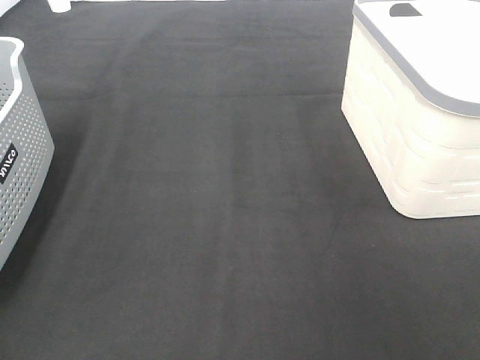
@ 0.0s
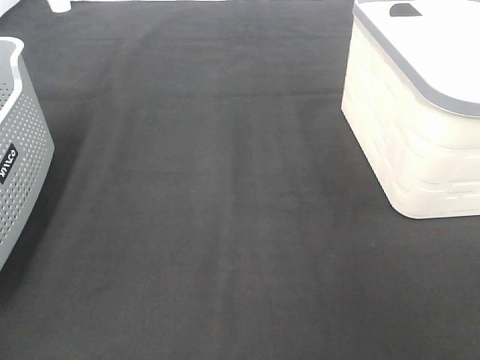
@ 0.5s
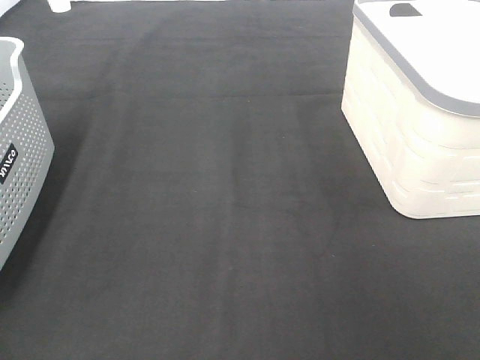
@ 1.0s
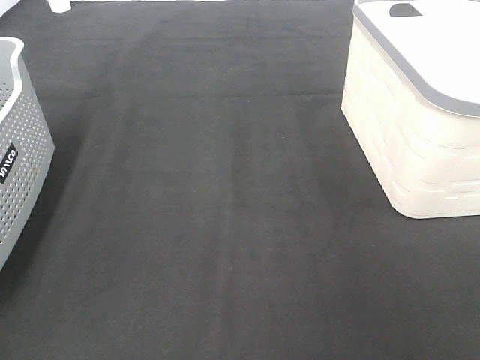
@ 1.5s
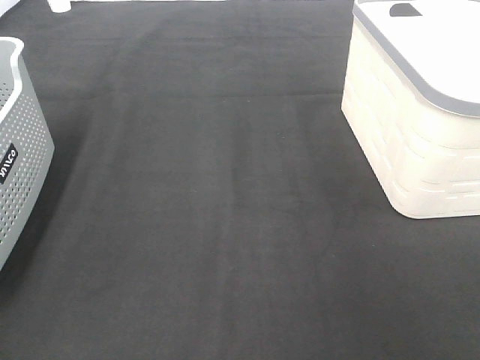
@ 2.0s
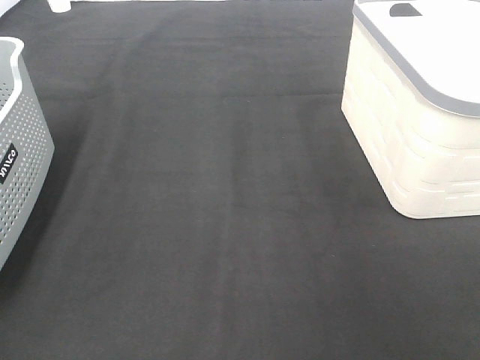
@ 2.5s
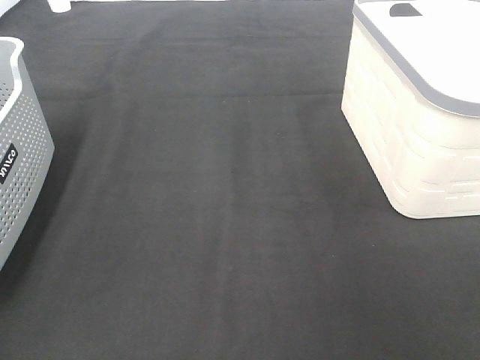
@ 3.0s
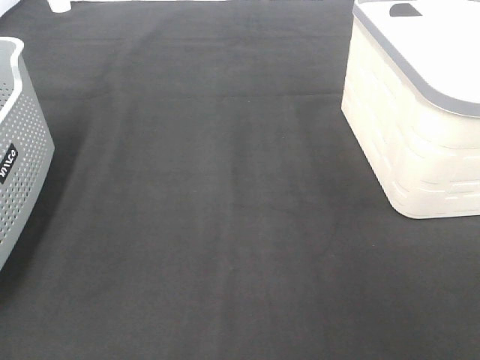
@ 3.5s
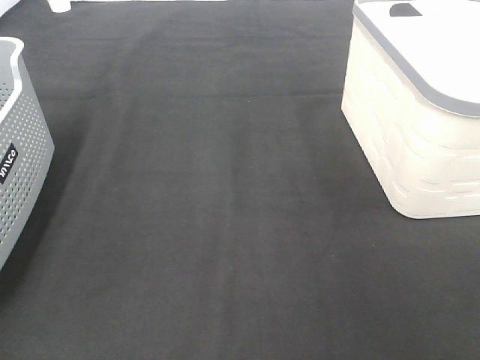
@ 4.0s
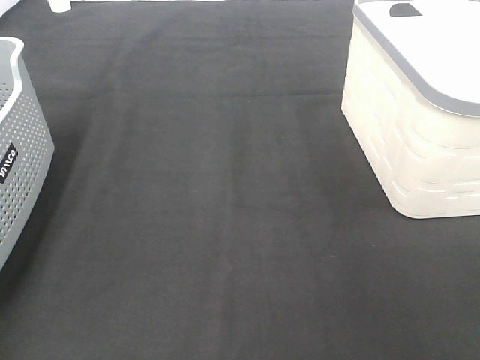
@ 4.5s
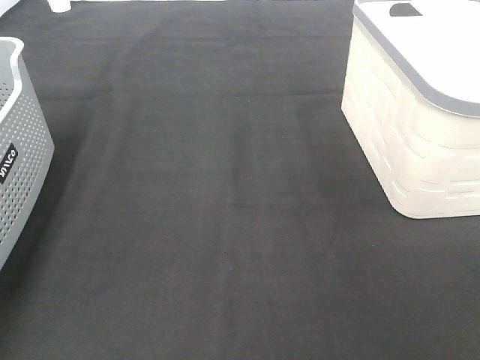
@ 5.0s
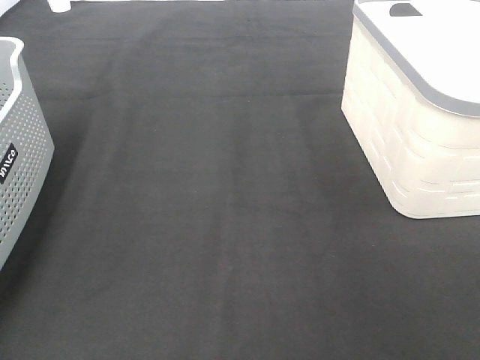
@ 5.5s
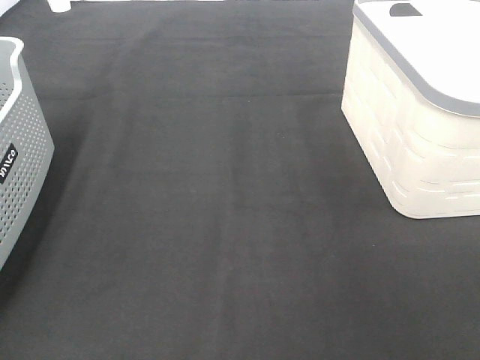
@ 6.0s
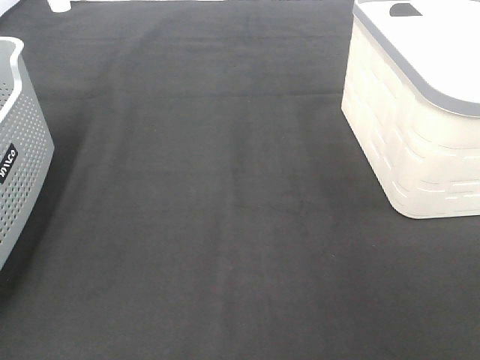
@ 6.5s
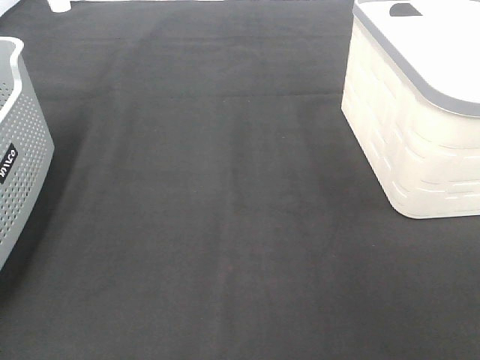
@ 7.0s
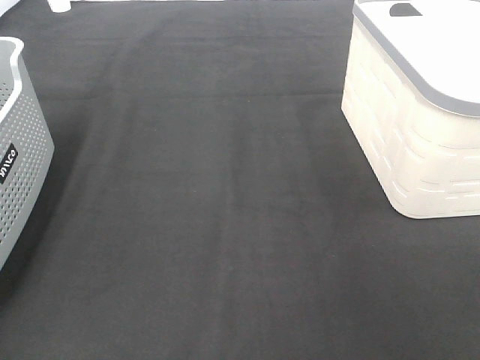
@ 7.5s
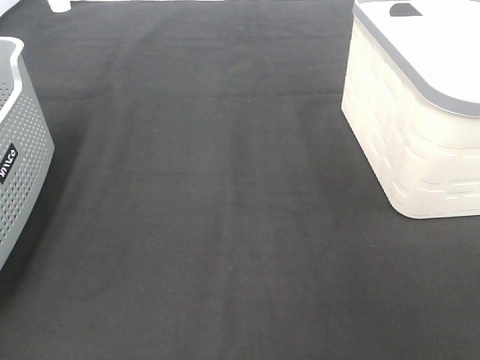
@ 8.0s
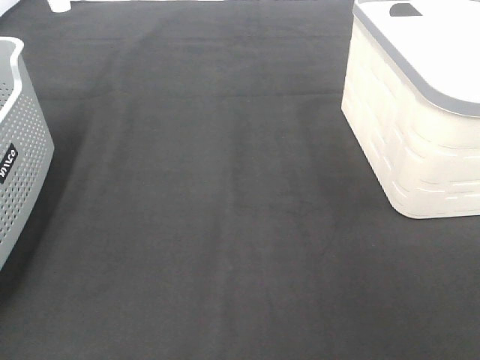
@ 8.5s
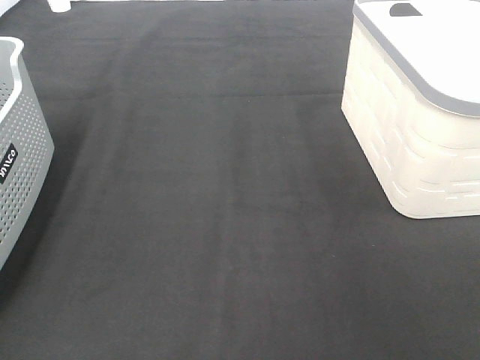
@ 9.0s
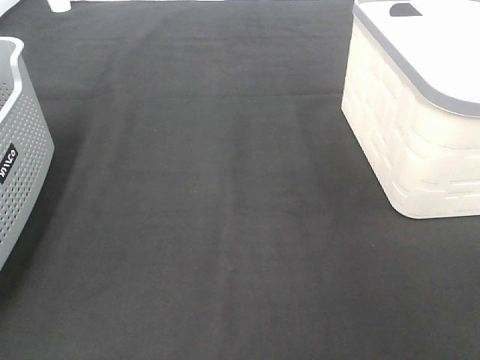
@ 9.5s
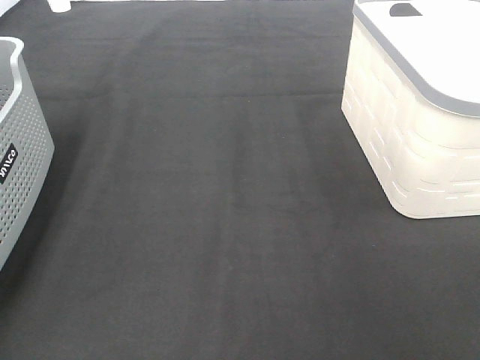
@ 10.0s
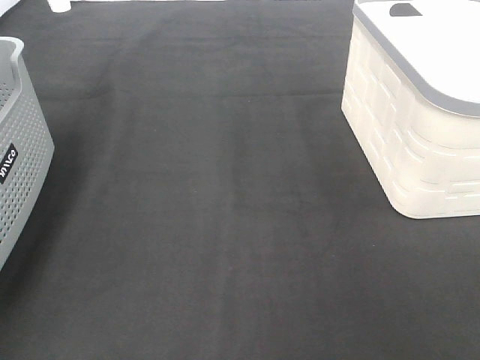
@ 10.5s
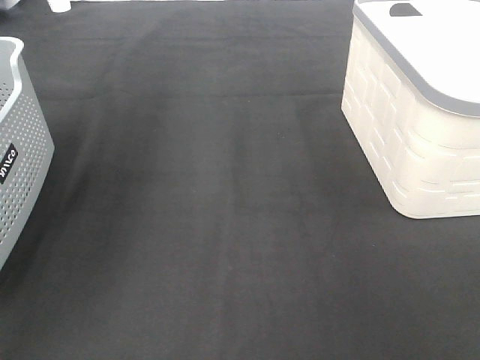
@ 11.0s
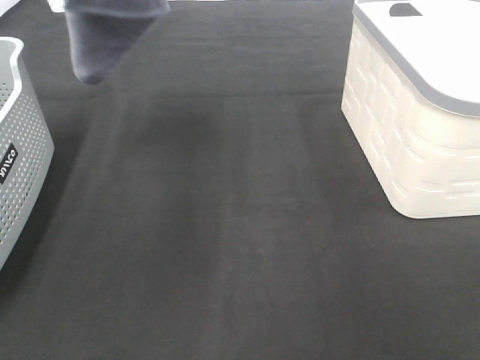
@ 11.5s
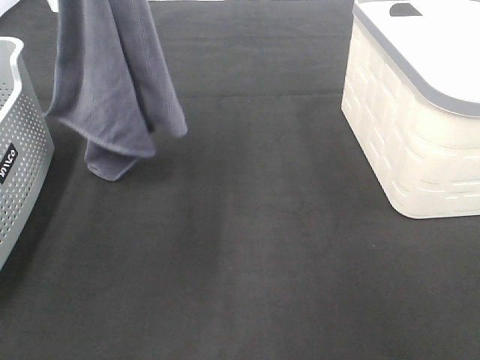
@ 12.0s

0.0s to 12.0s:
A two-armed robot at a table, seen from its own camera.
Task of the whole recording: Remove the towel and place it.
0.0s to 2.0s: The two grippers keep their place.
10.0s to 12.0s: The right gripper goes about 5 cm forward, while the left gripper shifts approximately 25 cm to the right.

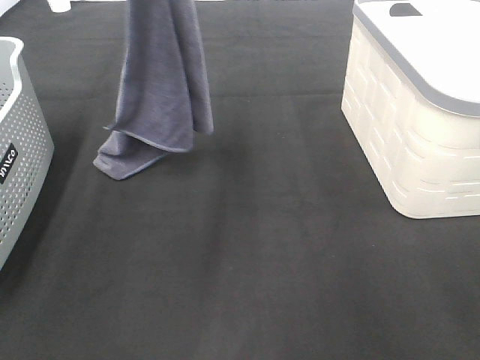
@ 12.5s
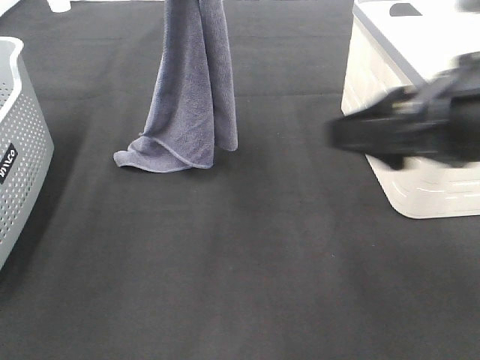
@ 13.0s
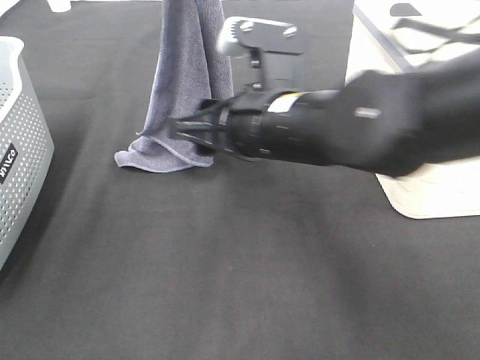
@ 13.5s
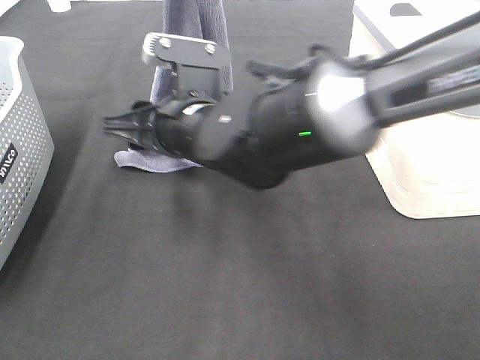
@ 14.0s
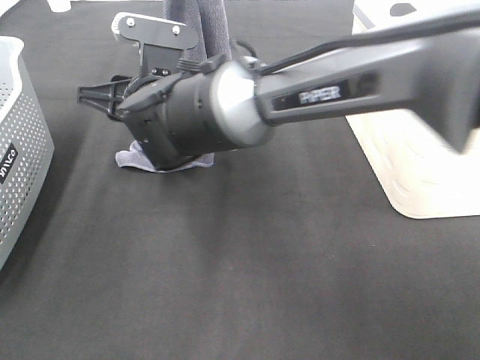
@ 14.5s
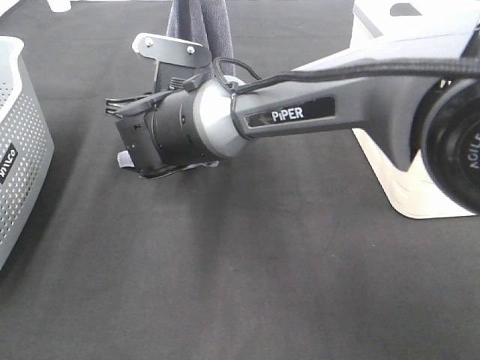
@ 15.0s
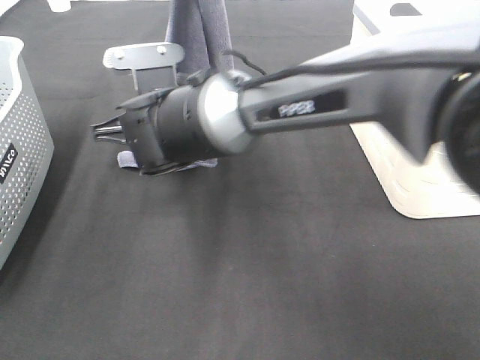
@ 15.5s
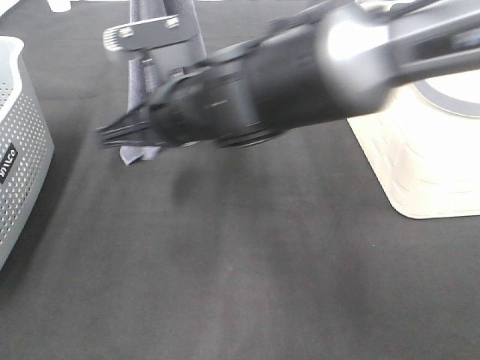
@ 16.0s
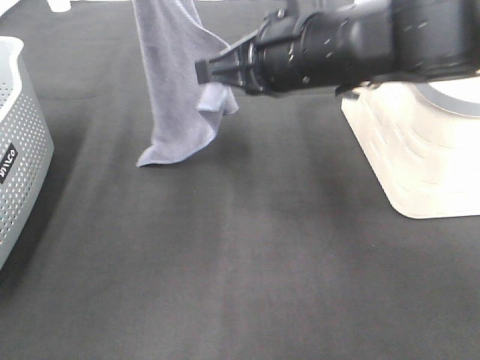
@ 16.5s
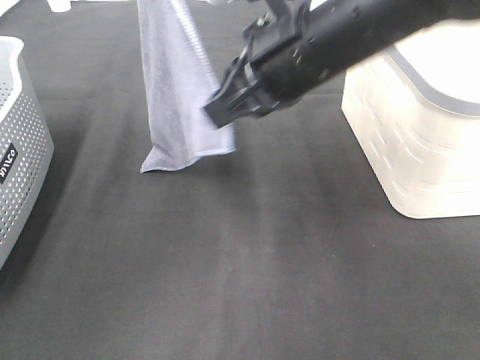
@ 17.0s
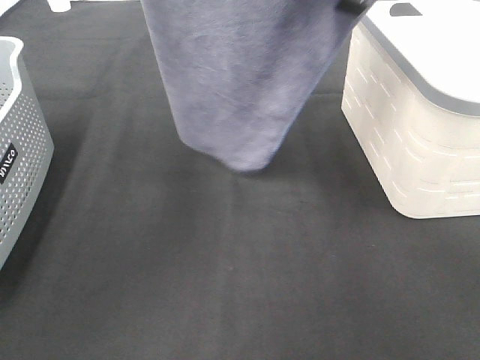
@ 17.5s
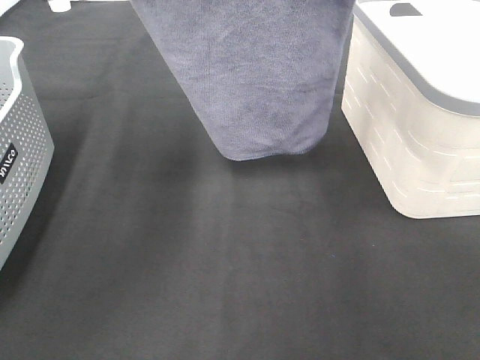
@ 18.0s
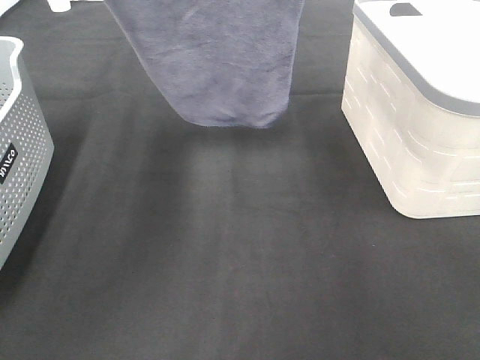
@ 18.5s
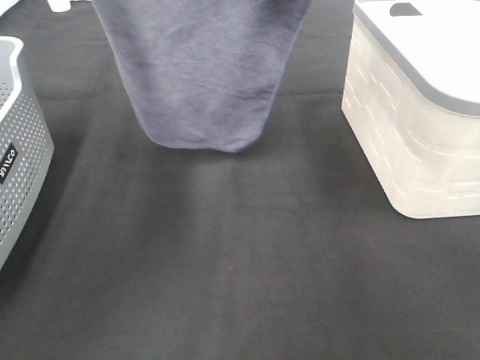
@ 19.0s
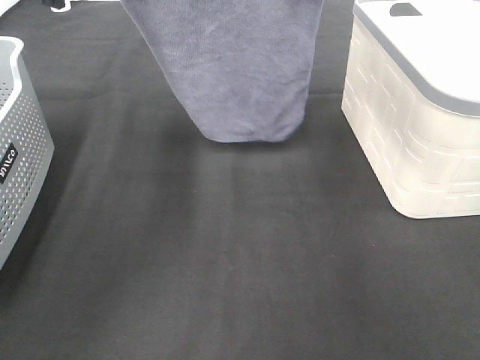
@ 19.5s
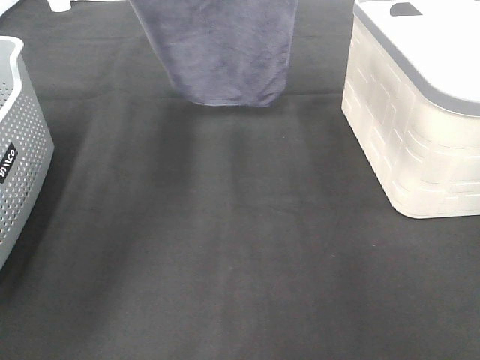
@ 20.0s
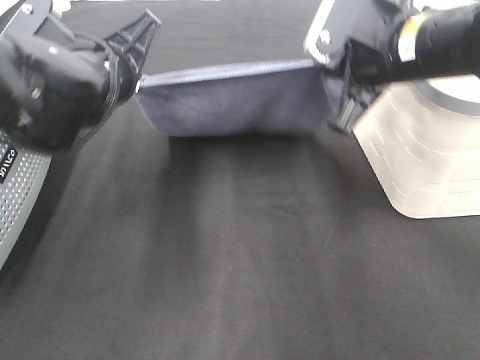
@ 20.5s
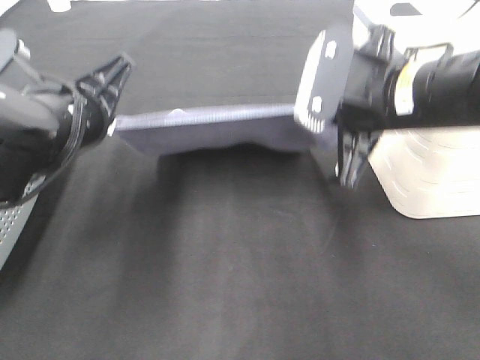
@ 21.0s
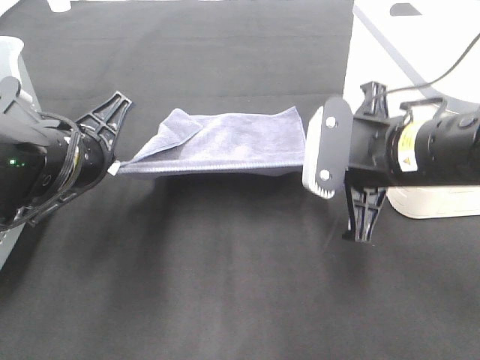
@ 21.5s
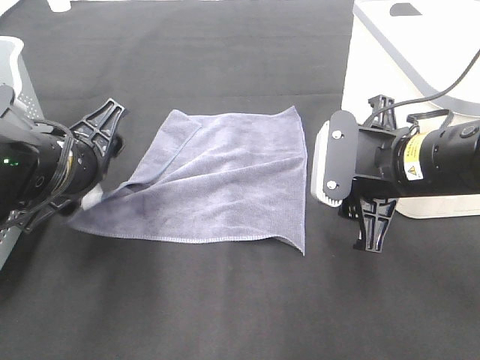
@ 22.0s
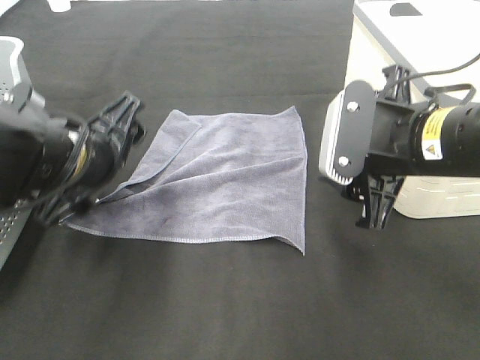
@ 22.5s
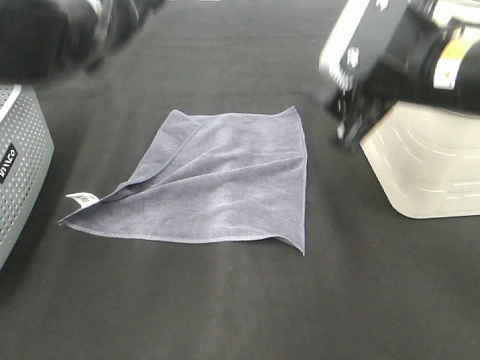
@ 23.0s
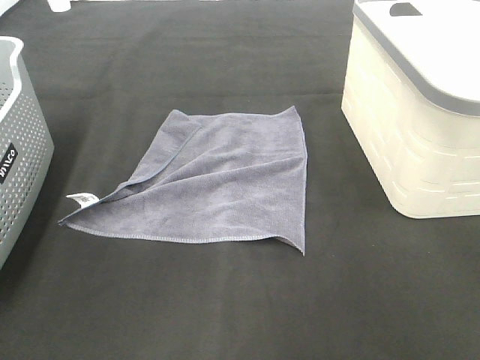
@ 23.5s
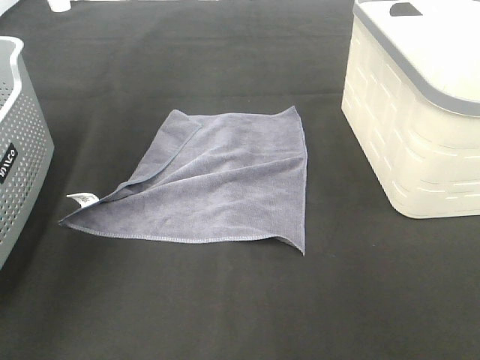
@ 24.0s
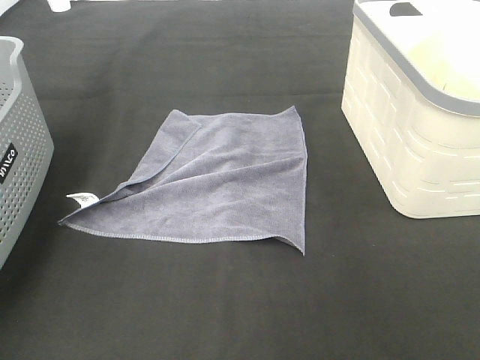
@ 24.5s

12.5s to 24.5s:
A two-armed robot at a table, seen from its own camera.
Task of the whole recording: Remove the towel and place it.
Step, 14.5s to 17.0s: Right hand: spread the grey towel flat on the table.
Step, 14.5s to 17.5s: Left hand: spread the grey towel flat on the table.
12.5s to 14.5s: The right gripper goes approximately 40 cm to the left, forward and downward.
14.5s to 16.5s: The left gripper is displaced to the left by about 10 cm. The right gripper travels to the right and upward by approximately 15 cm, and closes.
16.5s to 18.5s: The left gripper travels to the left by about 5 cm, while the right gripper heads upward and forward, covering some 15 cm.
18.5s to 20.5s: The left gripper moves downward, some 15 cm. Meanwhile the right gripper goes some 15 cm downward and to the right.
20.5s to 22.5s: The right gripper goes some 5 cm backward, and opens its fingers; the left gripper shifts by roughly 5 cm, and opens up.
22.5s to 24.5s: The left gripper shifts some 35 cm upward and to the left; the right gripper moves upward and forward, approximately 30 cm.

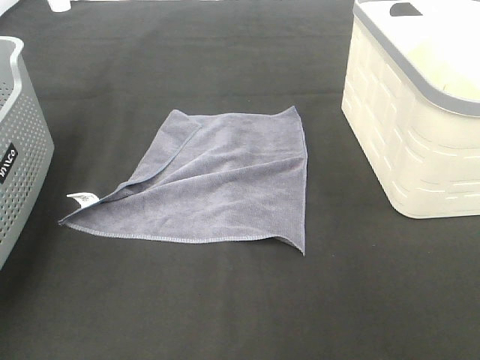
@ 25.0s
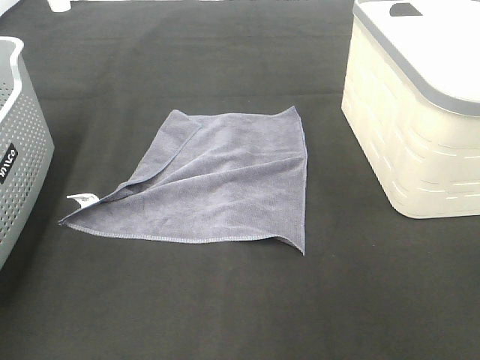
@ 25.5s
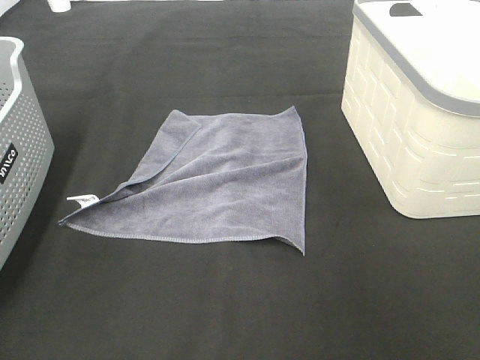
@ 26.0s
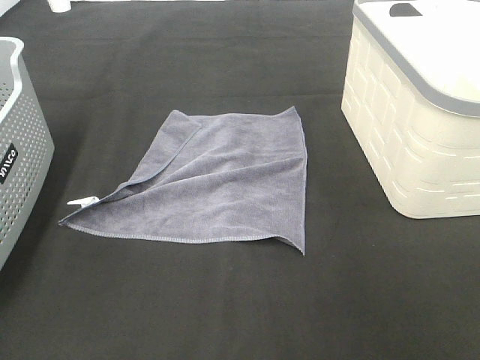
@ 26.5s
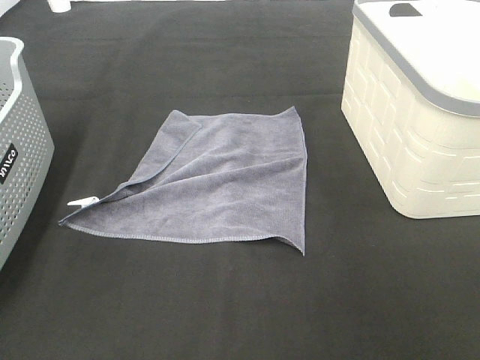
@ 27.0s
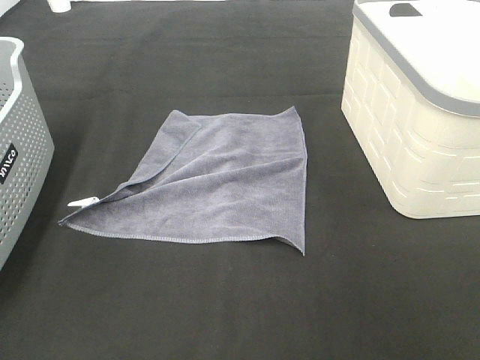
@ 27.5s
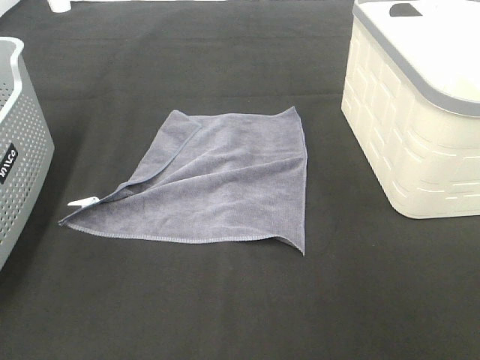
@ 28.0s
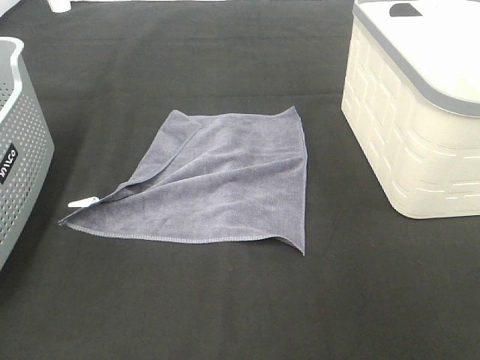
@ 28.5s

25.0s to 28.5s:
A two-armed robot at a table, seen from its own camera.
Task of the whole recording: Remove the towel and place it.
27.0s to 28.5s: Both grippers stay about where they are.
